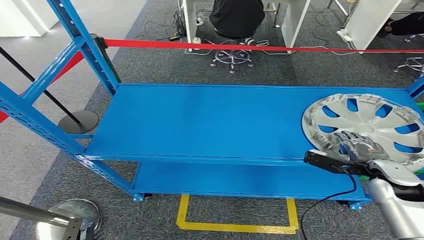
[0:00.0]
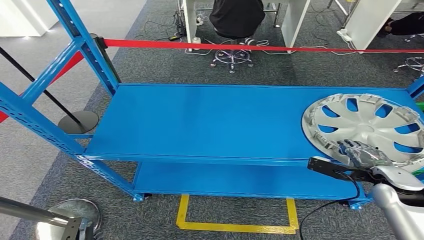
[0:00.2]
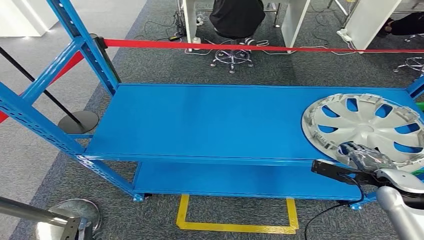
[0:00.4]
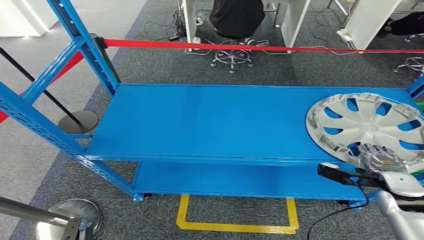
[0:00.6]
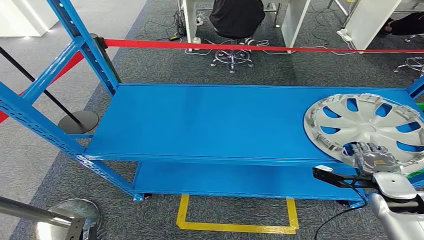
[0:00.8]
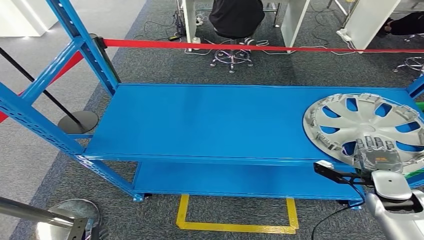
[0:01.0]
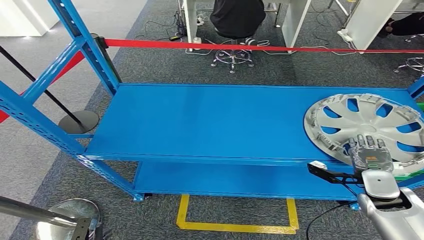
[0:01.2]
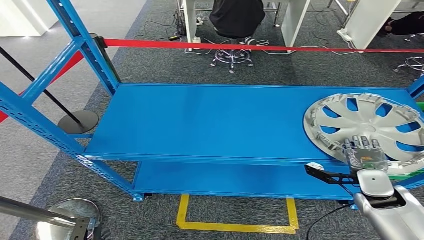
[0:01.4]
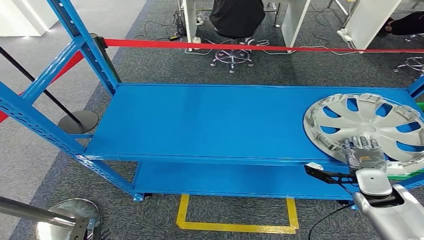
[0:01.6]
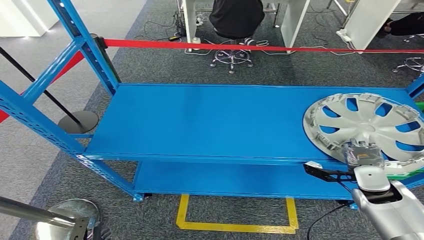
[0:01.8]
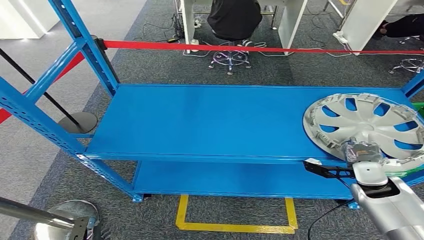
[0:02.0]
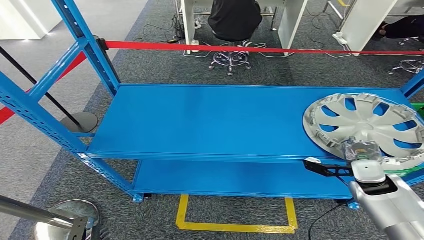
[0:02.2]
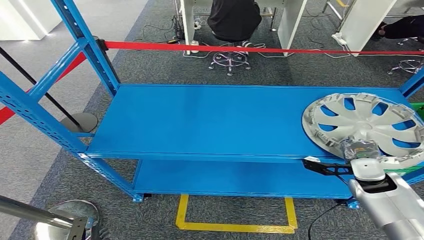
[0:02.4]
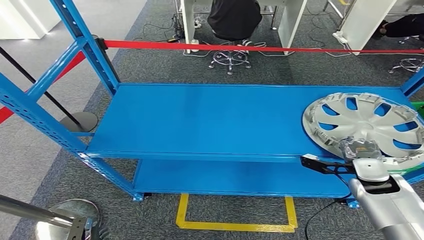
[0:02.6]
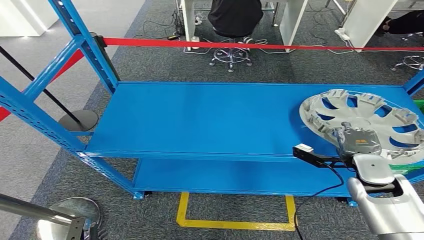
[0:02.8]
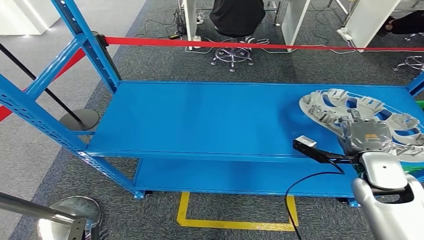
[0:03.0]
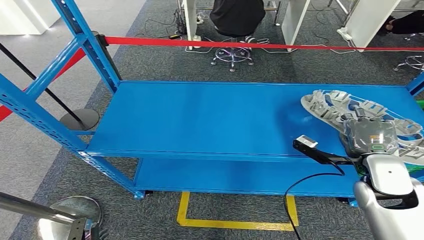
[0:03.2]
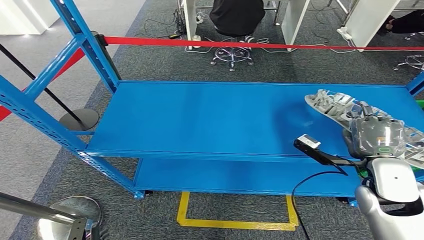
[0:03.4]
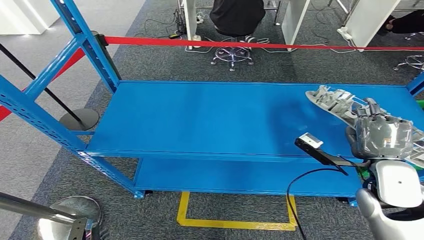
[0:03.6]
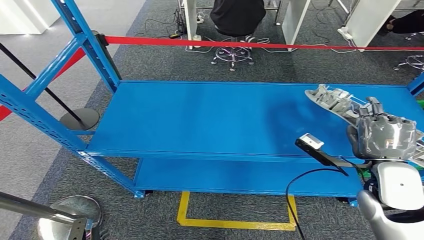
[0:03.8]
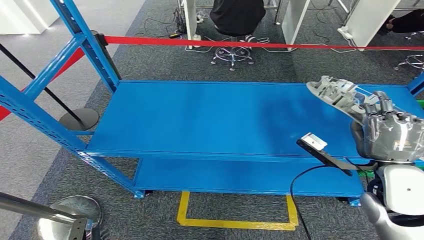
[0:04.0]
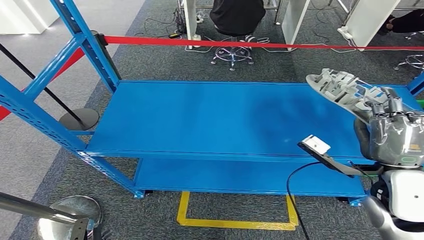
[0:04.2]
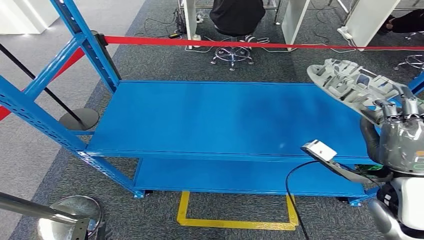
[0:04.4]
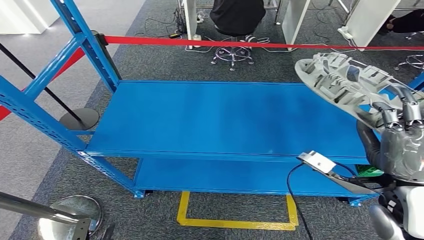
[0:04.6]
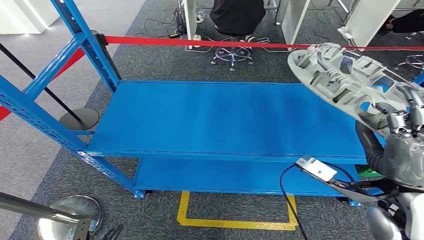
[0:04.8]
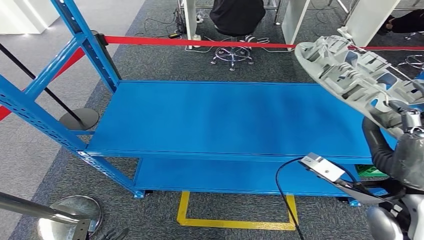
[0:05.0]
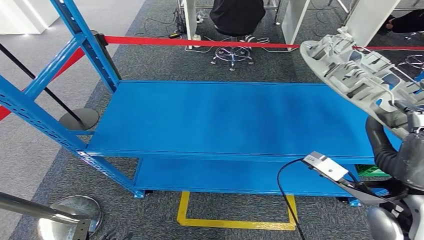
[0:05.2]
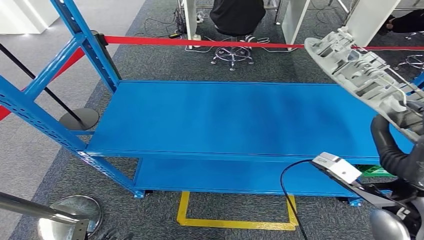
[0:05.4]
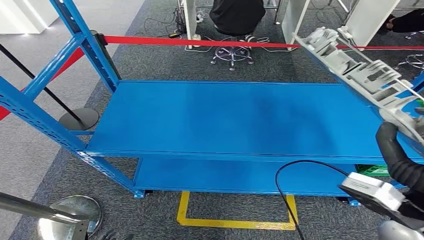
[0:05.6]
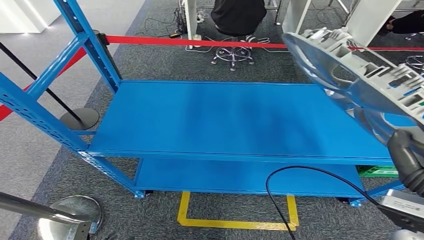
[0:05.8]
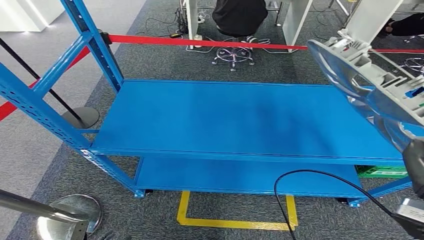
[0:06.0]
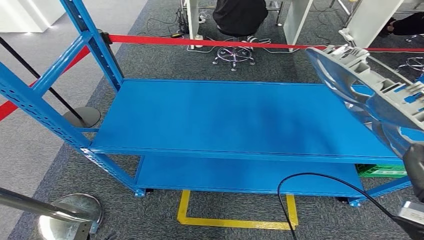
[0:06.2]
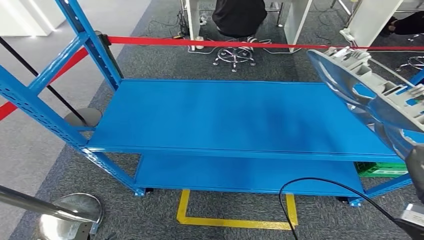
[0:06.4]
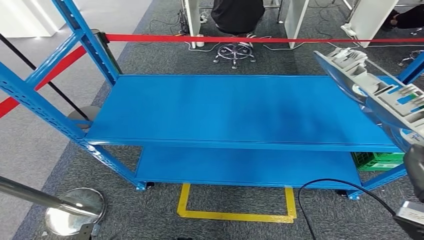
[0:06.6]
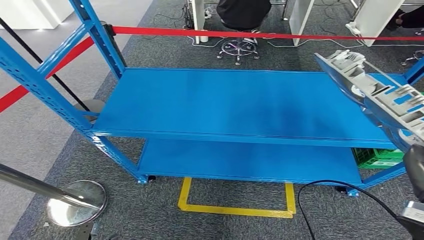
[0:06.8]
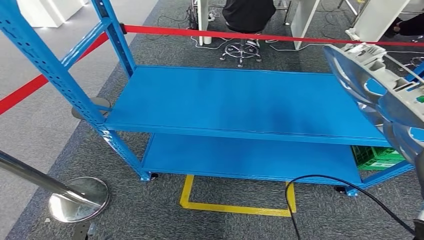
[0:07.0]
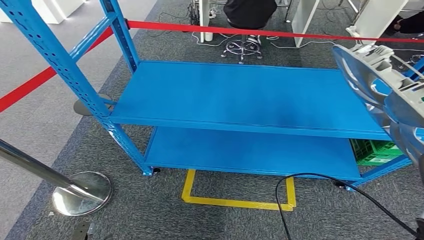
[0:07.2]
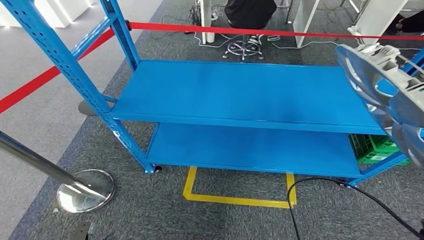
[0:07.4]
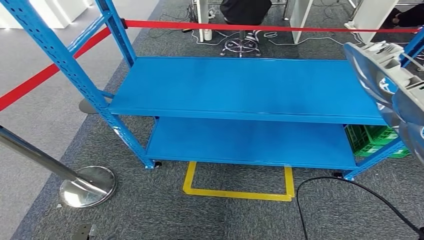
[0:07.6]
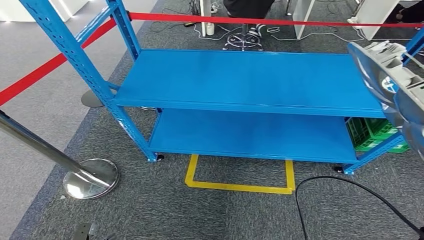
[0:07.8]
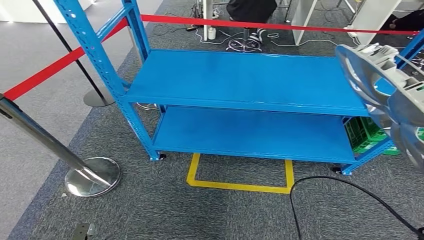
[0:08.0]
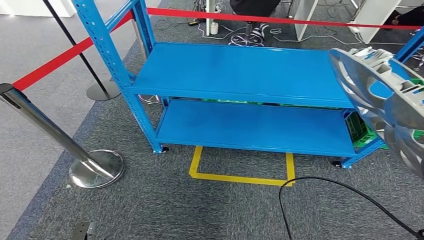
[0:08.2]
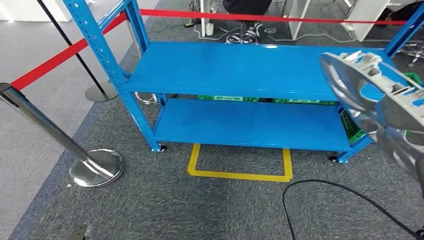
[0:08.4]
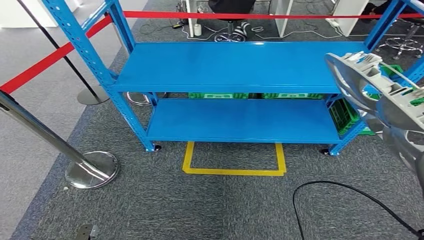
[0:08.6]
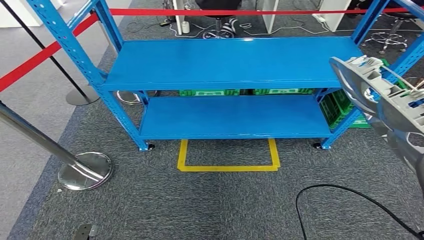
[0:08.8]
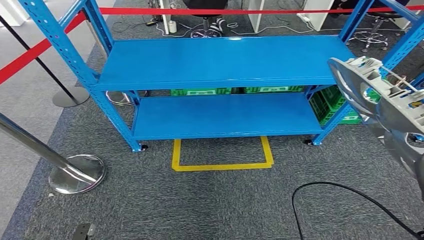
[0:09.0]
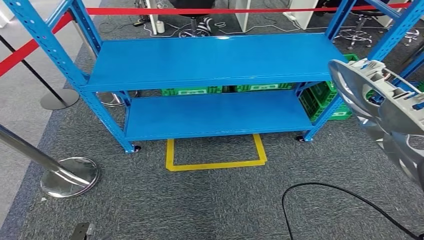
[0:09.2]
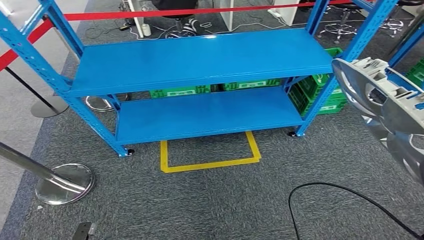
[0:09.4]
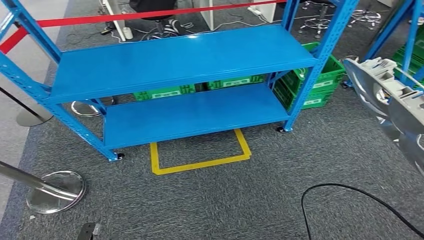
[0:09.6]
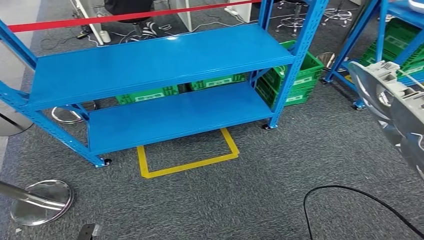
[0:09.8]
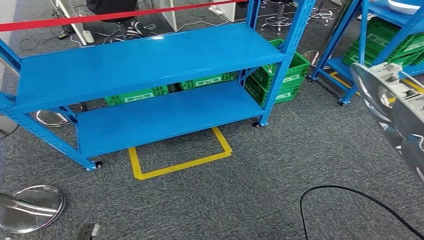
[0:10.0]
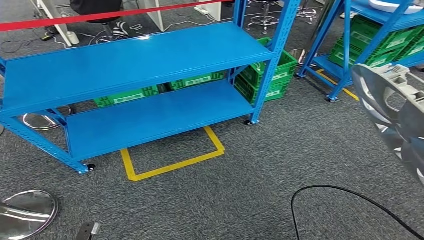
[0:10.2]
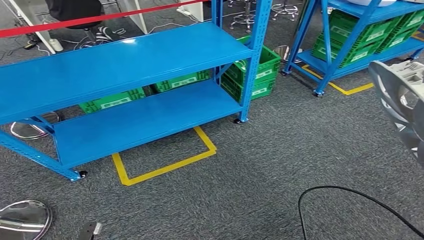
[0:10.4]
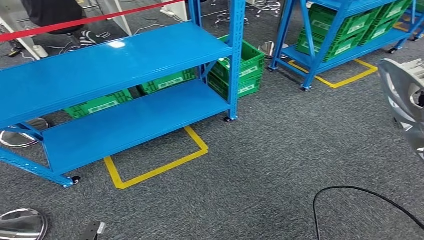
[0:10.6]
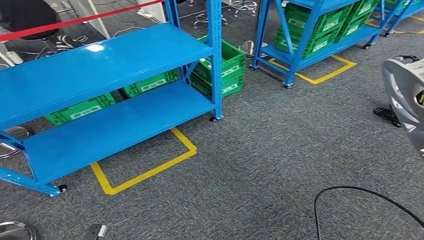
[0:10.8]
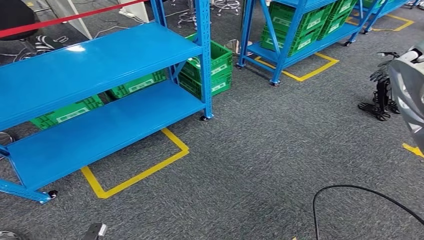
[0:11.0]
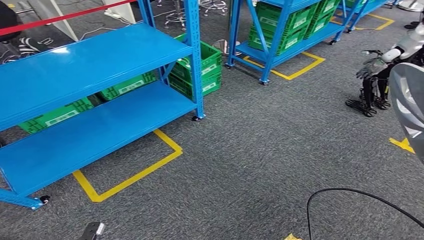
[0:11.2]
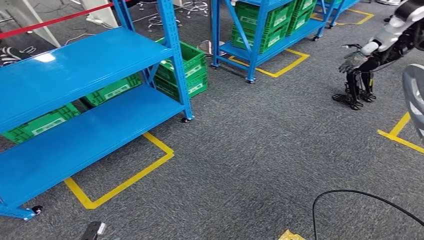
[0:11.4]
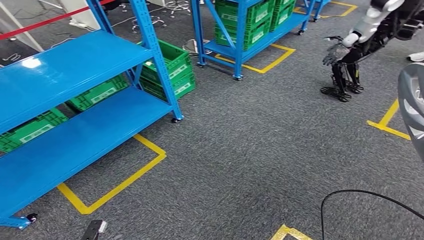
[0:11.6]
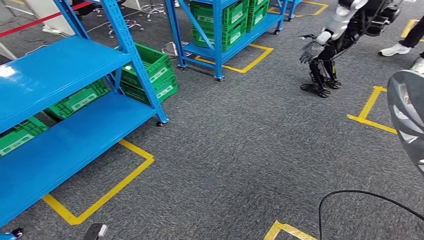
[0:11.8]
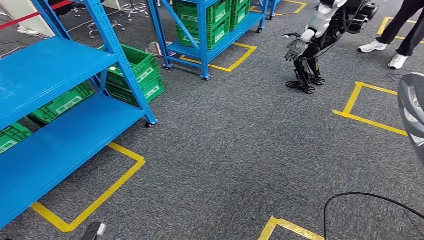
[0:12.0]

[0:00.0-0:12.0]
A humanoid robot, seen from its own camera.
Step, 0:00.0 to 0:06.2: Pick up the small component from the shelf.
0:03.0 to 0:04.4: The right hand heads backward and upward, covering approximately 10 cm.

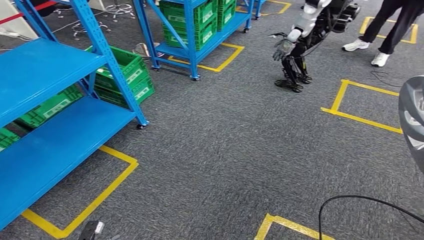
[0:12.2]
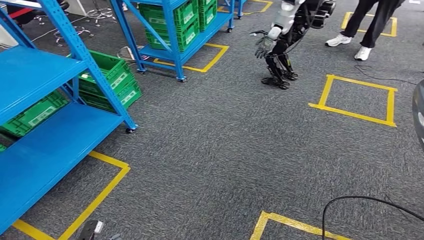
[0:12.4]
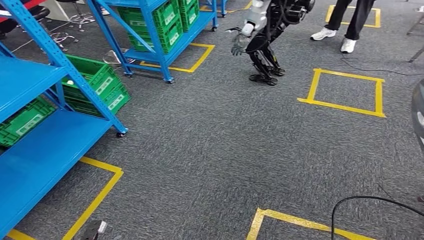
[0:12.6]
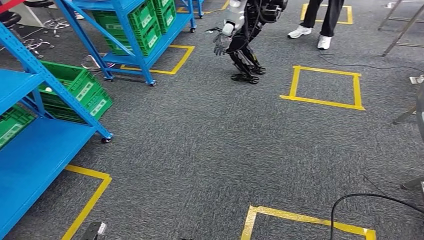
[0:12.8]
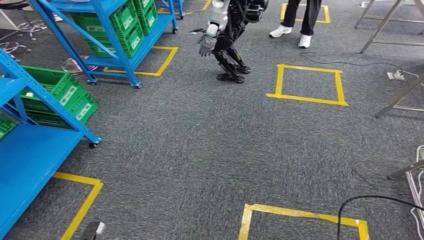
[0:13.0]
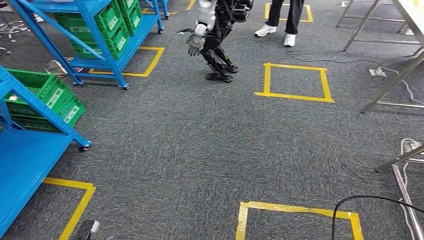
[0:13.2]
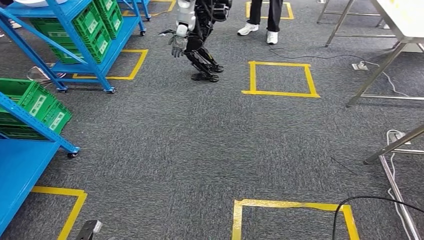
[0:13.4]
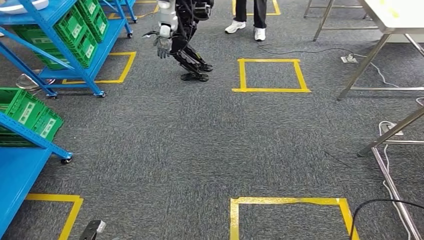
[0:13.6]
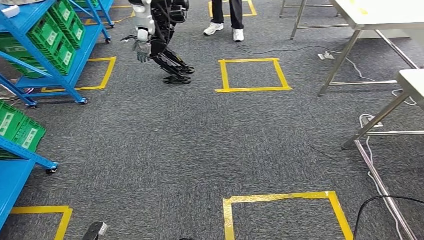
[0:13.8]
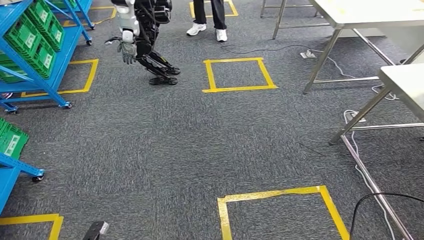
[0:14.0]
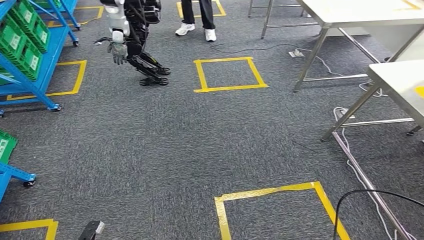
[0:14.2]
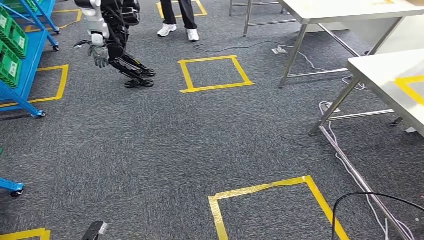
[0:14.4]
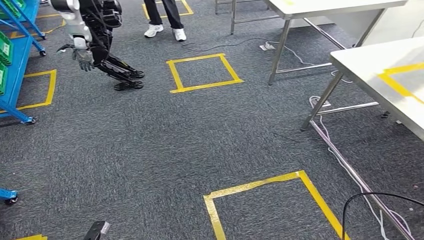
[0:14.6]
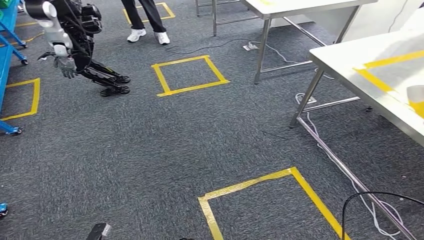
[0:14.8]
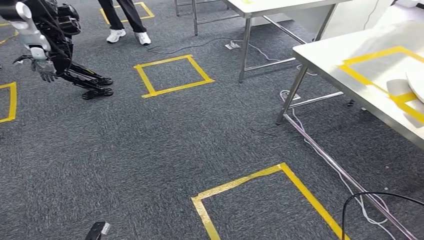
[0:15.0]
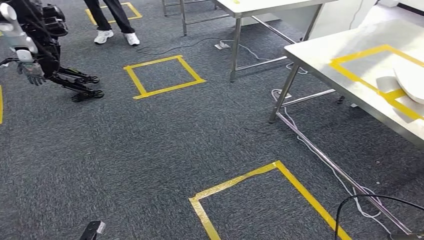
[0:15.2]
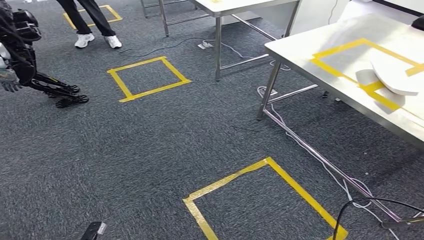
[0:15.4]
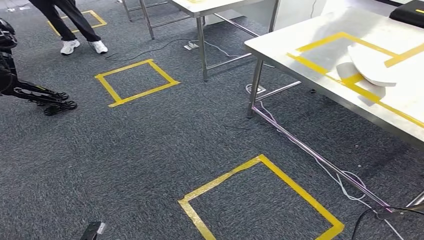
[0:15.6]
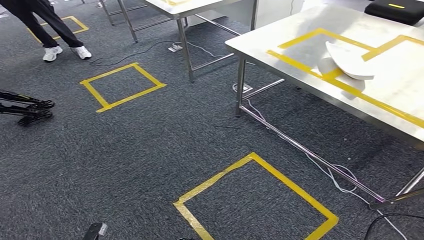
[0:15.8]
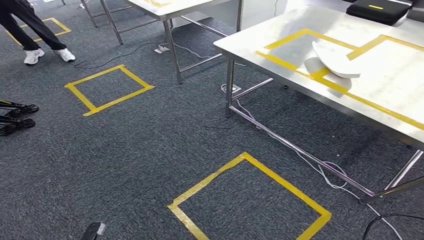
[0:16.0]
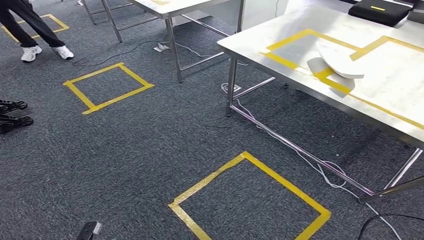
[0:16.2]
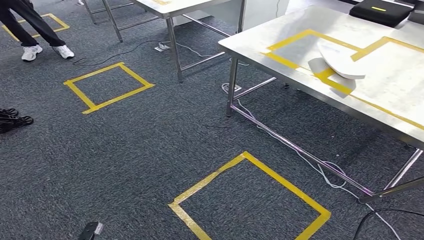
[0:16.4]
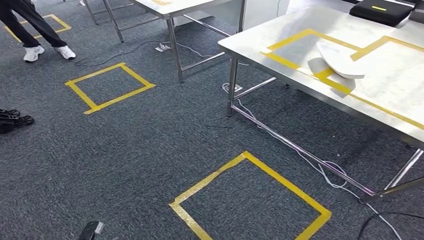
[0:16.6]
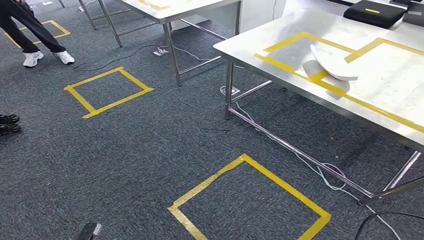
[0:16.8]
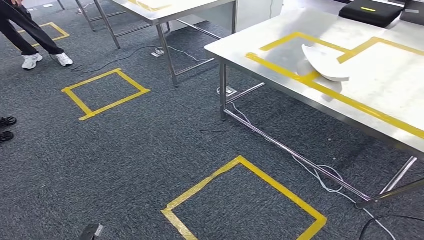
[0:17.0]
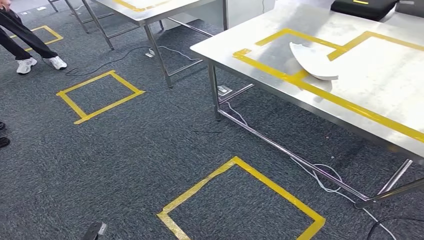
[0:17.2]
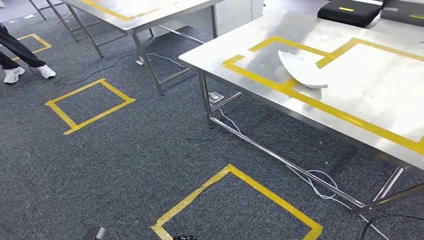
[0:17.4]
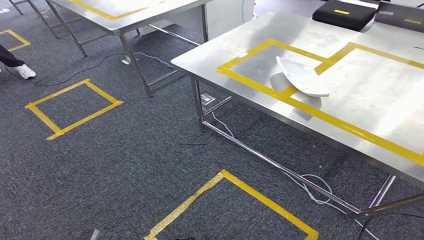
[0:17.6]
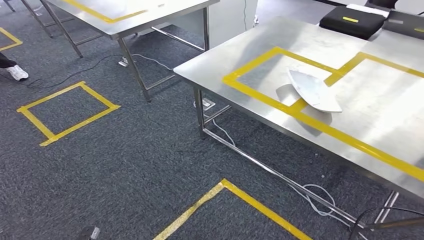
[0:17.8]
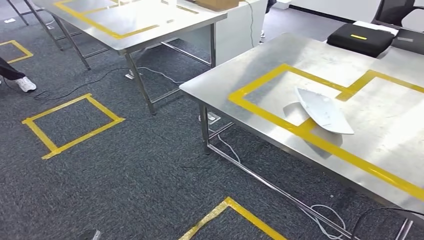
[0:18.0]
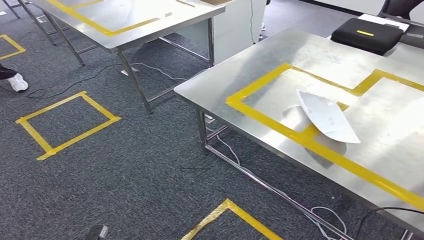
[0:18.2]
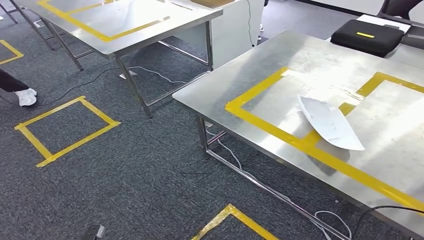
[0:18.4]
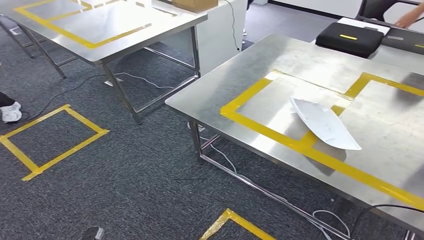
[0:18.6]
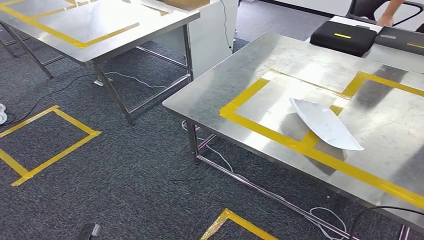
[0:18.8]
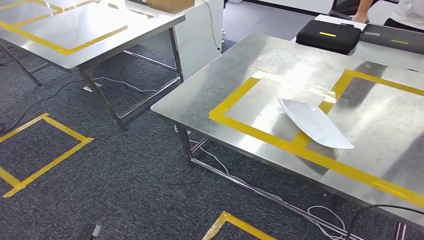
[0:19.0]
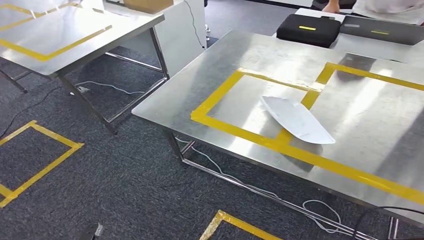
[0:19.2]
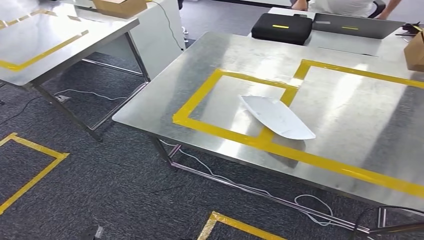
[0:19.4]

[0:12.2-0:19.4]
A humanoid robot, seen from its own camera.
Step, 0:12.2 to 0:19.0: Bring the small component to the front of the workbench.
